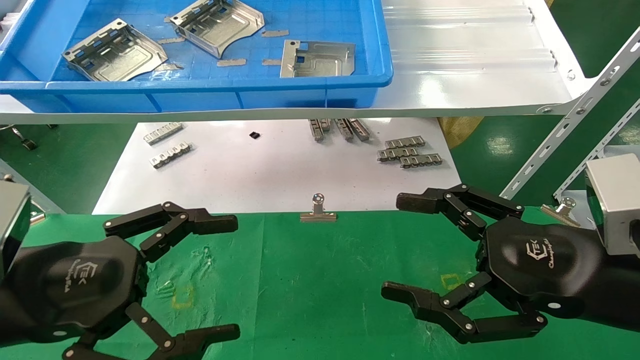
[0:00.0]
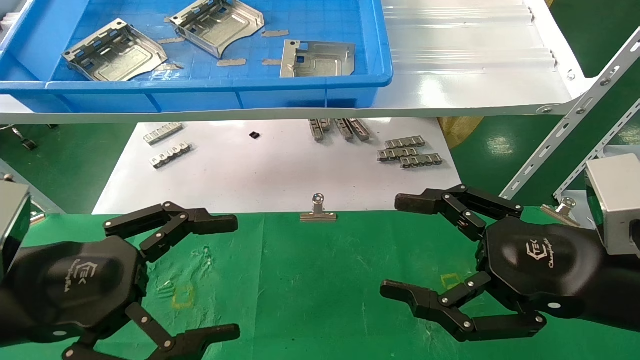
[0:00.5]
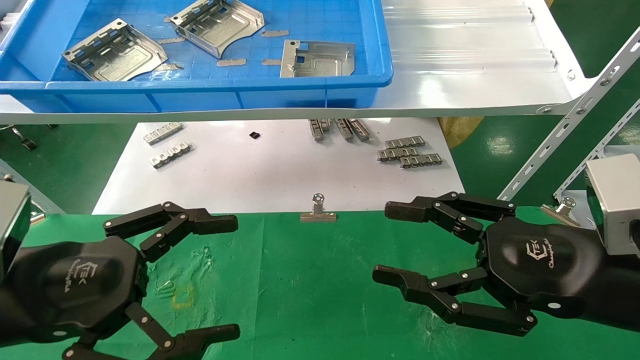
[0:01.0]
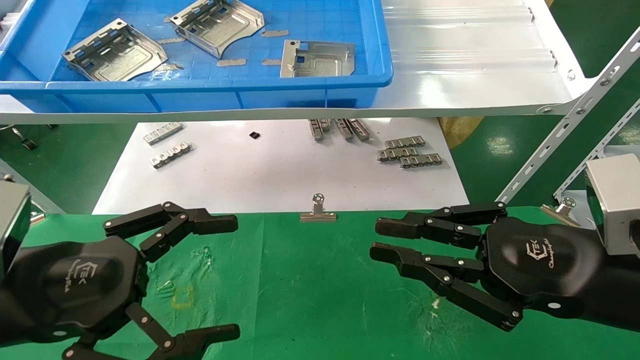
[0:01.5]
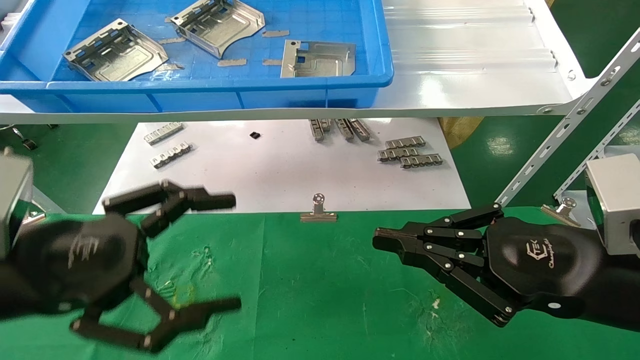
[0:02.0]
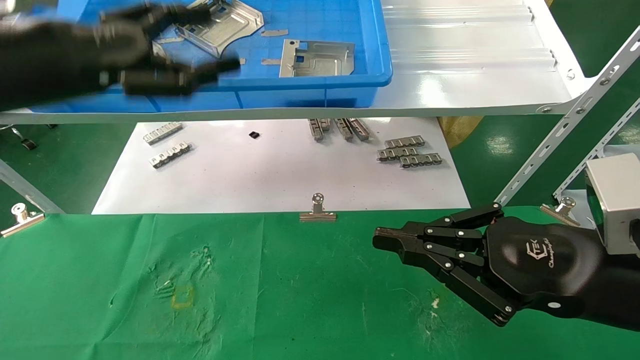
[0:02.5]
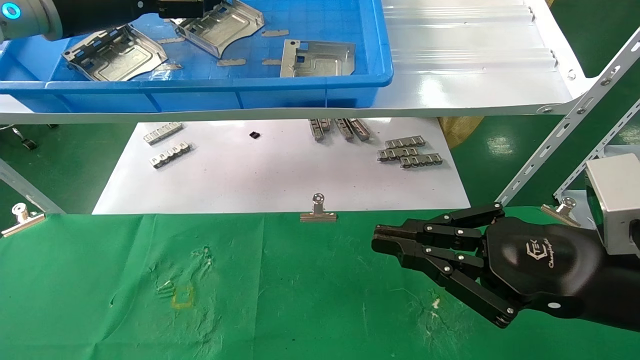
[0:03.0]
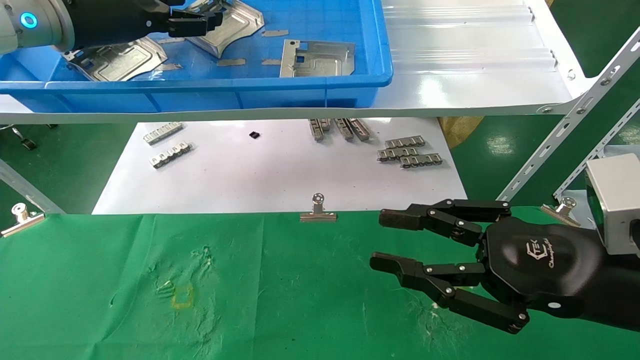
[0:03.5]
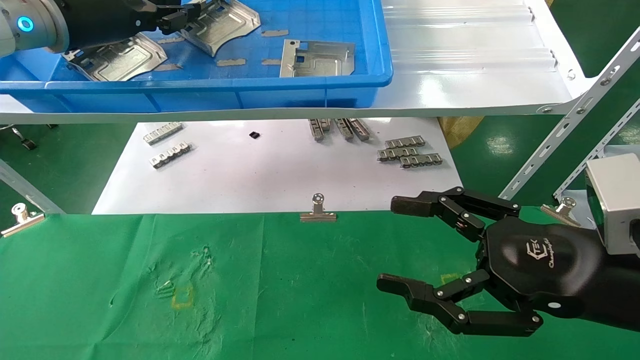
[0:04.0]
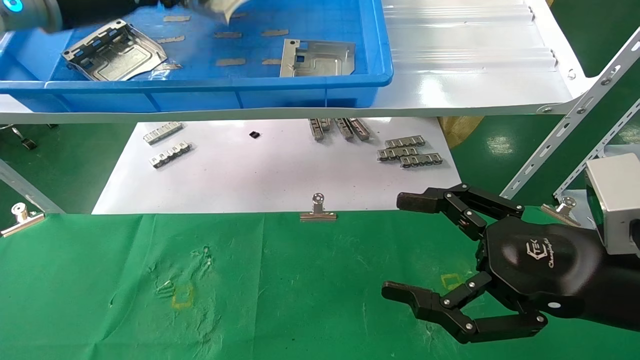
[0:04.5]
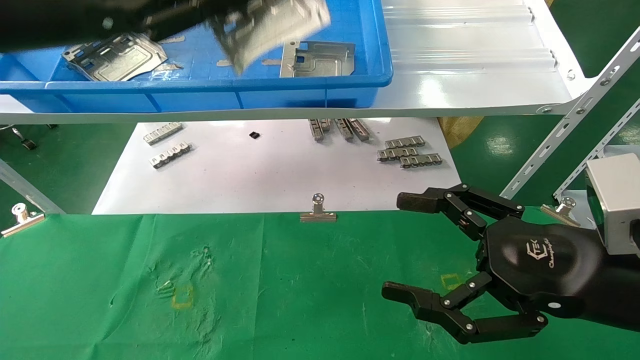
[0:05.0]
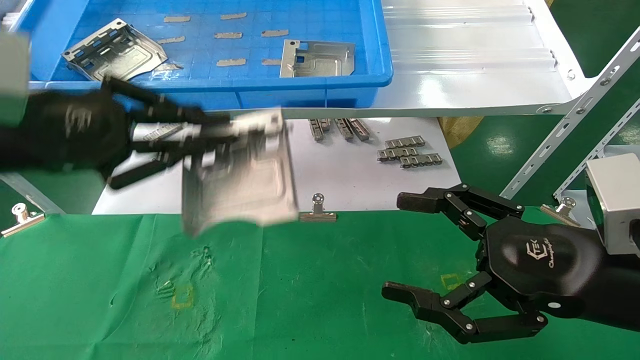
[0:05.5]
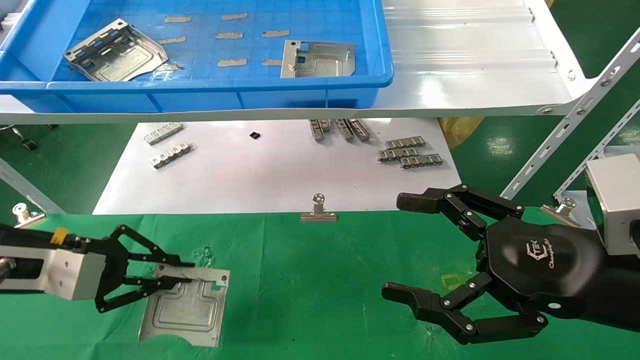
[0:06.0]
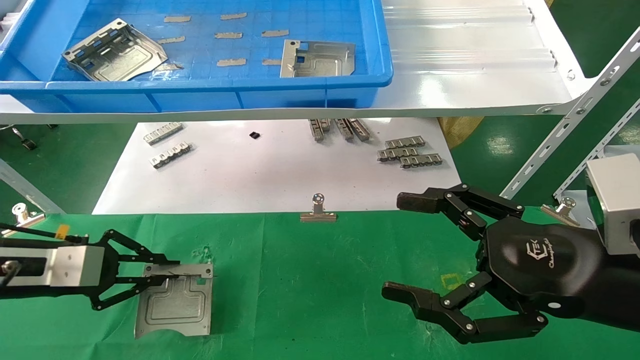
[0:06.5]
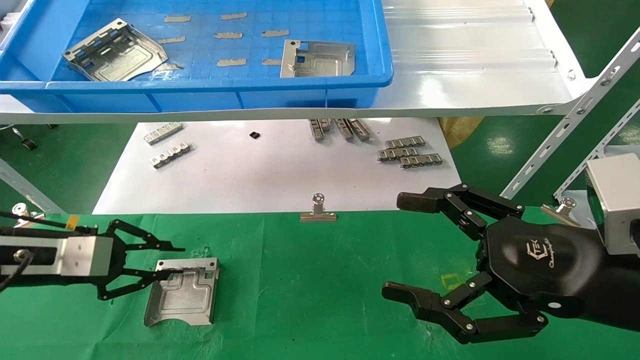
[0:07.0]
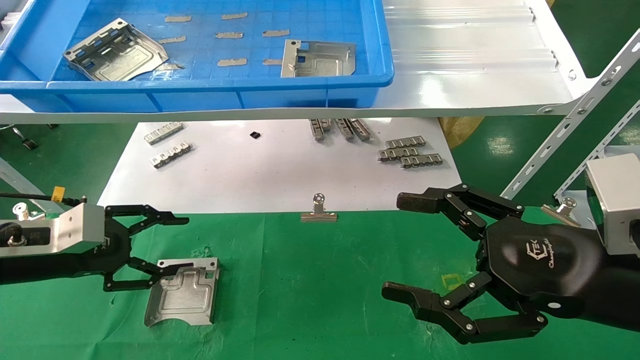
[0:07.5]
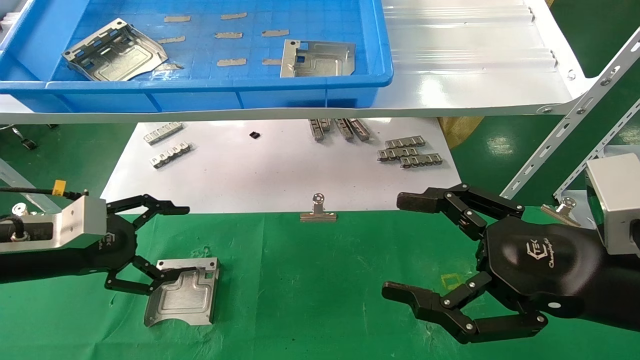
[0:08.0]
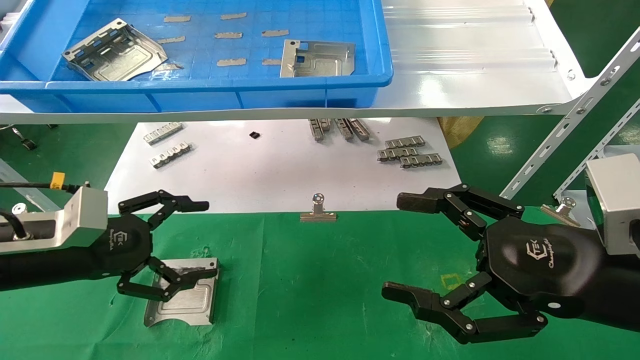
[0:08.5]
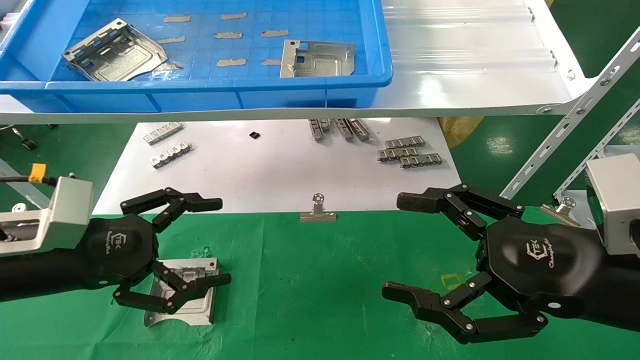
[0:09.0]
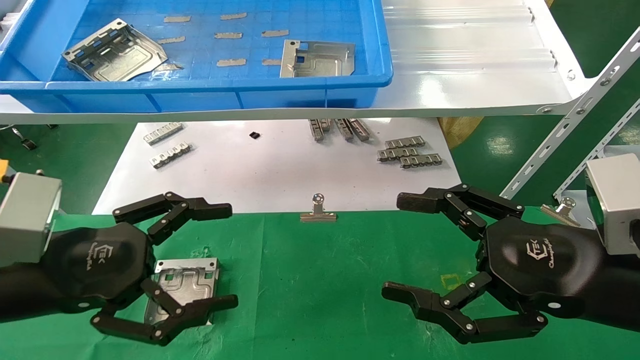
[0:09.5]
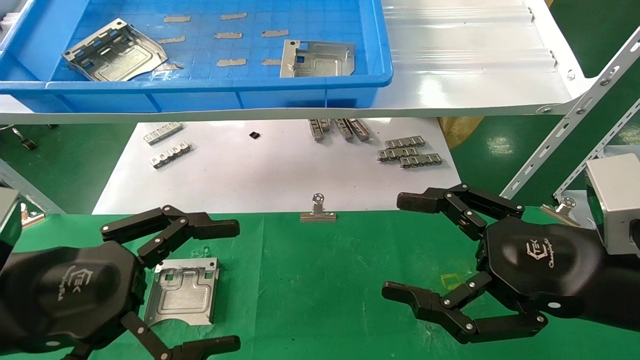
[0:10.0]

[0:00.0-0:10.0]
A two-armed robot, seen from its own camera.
Task of the whole recording: use the mechanical arm to pick up the parts and place them on the table.
Step, 0:02.5 to 0:04.0: Pick up the hard drive bracket from the feeding area.
Step, 0:04.5 to 0:07.0: Place the hard drive bracket into the box.
0:00.0 to 0:02.0: The right gripper closes its fingers.
0:02.0 to 0:04.0: The right gripper opens its fingers. Meanwhile the left gripper goes roughly 30 cm forward and upward, and closes its fingers.
0:04.0 to 0:06.0: The left gripper travels downward and backward by about 25 cm, and closes up.
0:06.0 to 0:08.0: The left gripper opens its fingers.
0:08.0 to 0:10.0: The left gripper moves backward and to the right, approximately 15 cm.

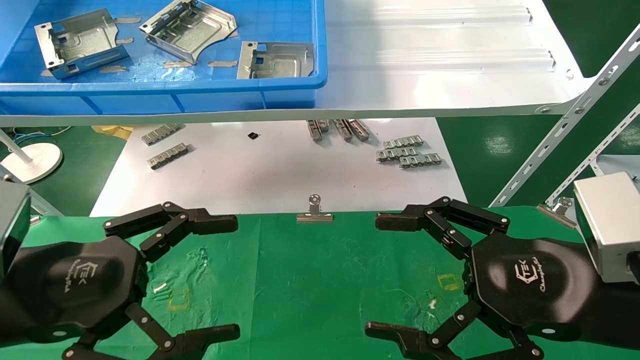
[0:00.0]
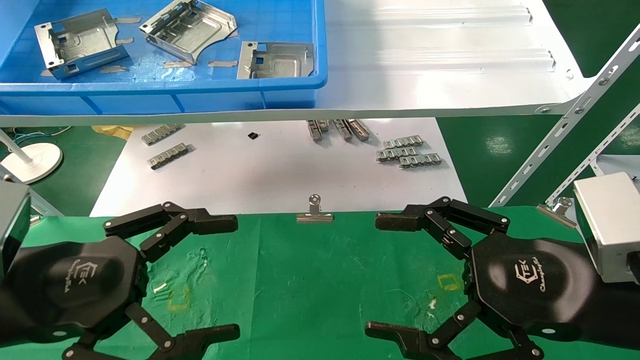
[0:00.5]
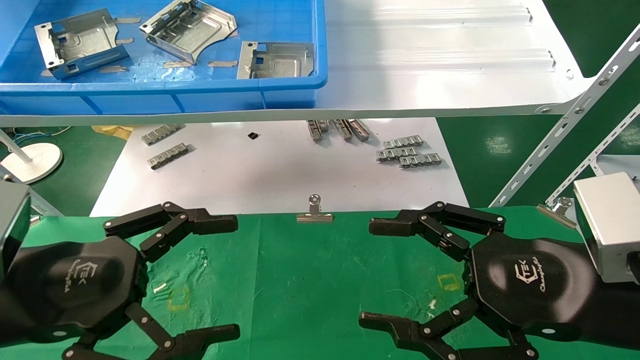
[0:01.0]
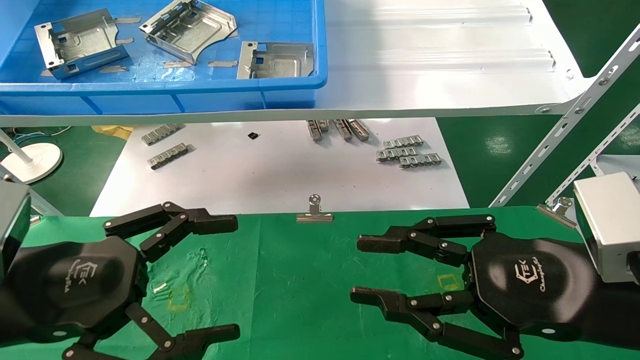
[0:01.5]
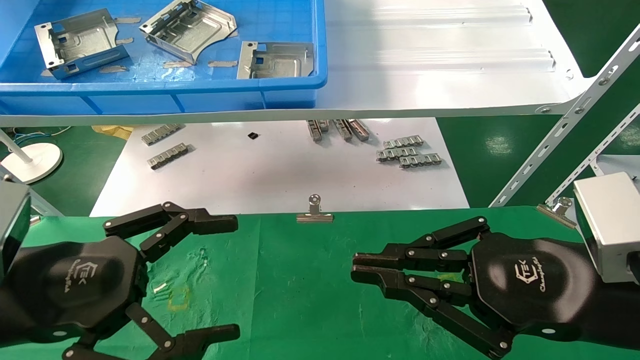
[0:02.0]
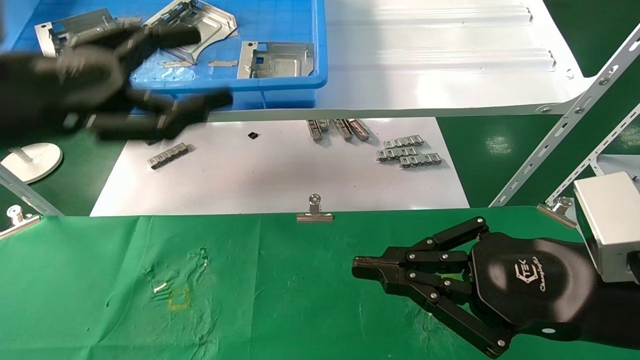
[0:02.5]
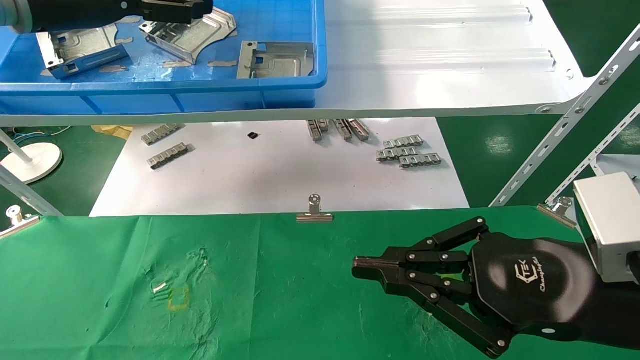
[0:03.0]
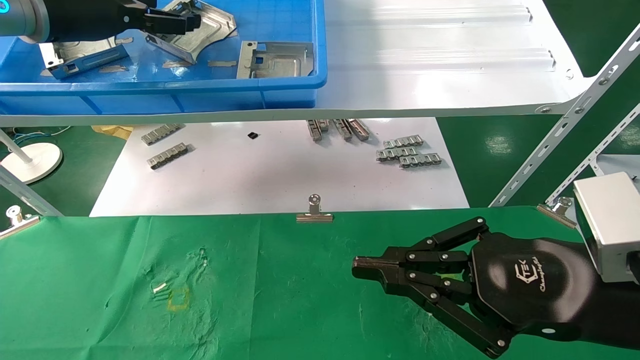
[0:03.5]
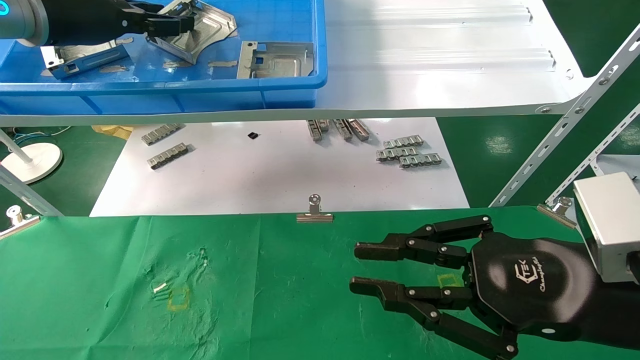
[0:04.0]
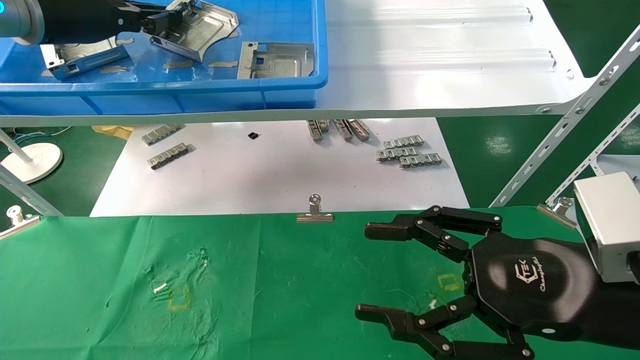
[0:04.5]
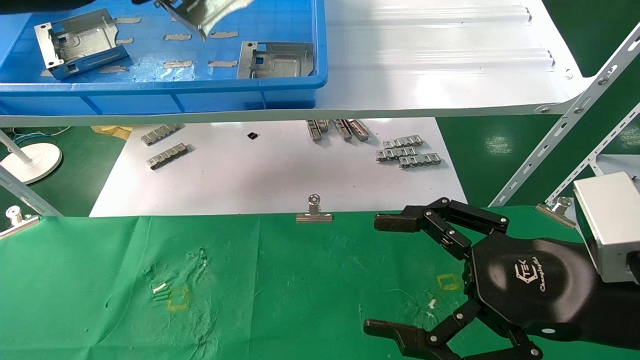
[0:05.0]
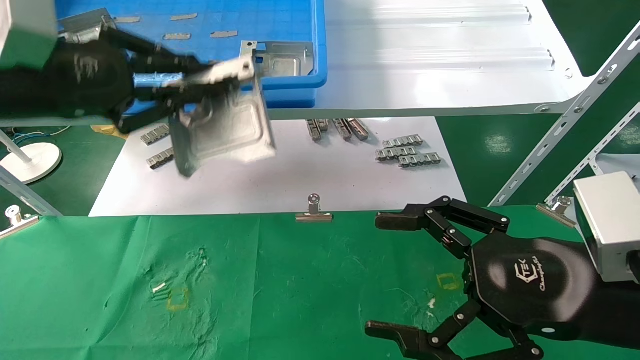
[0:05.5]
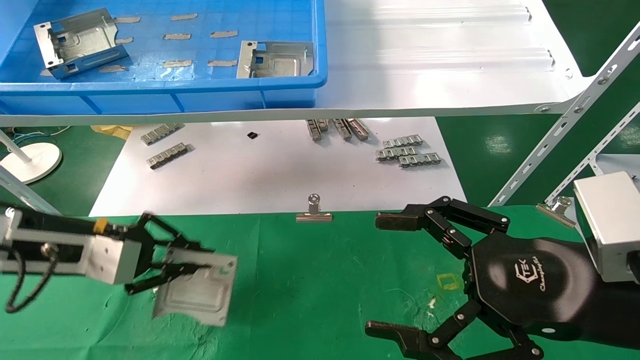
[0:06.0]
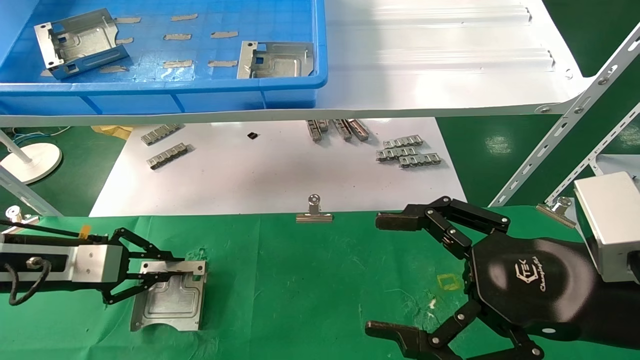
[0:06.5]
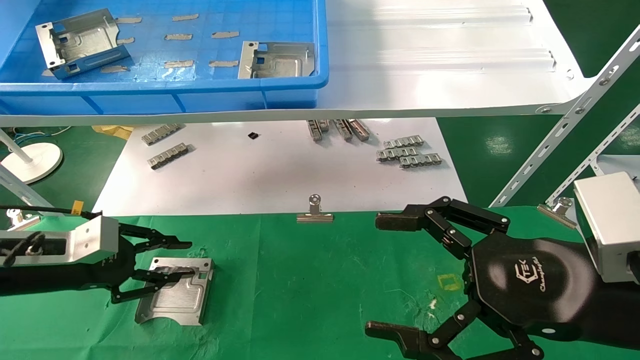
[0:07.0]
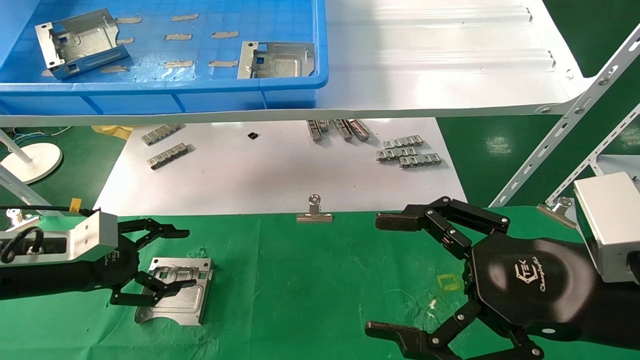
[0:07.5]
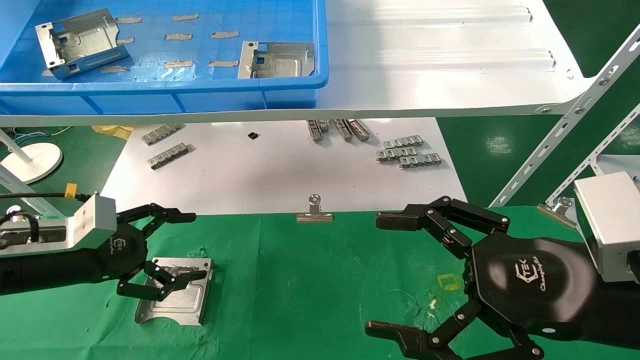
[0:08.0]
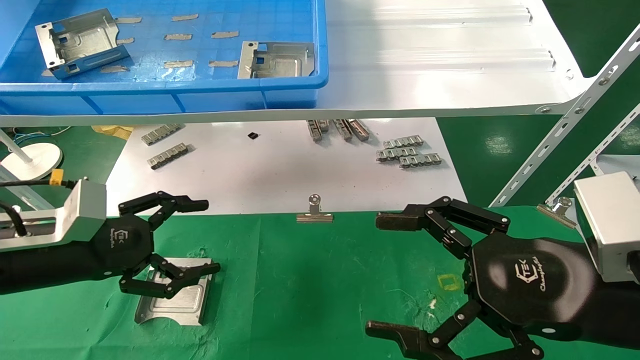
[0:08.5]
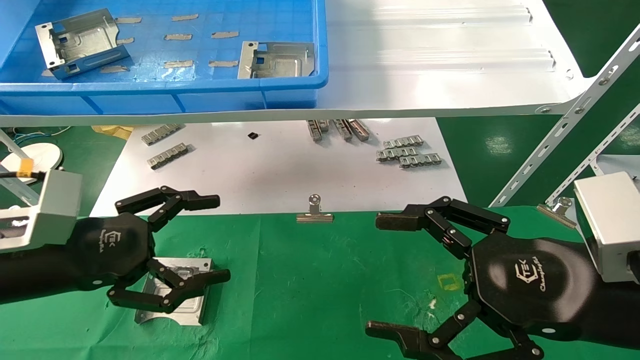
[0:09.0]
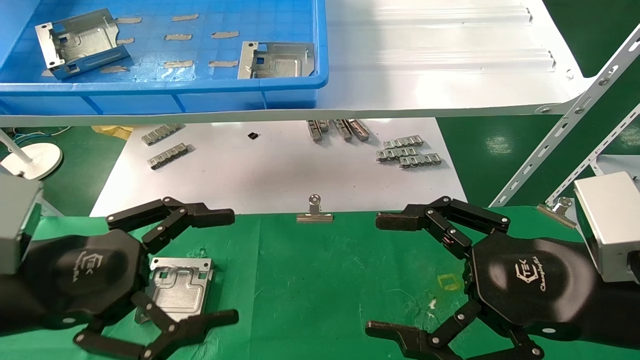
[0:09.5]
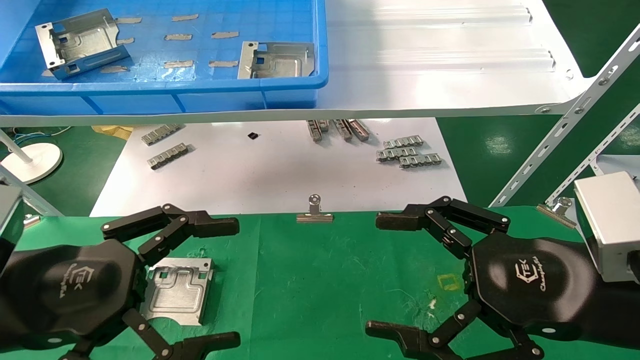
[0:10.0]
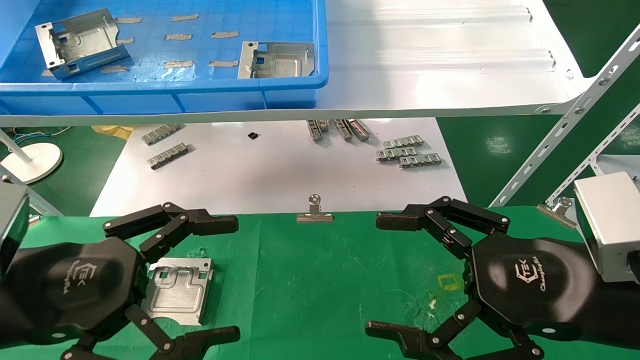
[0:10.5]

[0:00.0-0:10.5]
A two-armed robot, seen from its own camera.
Task of the whole recording: use the mechanical arm to pick up the parts and place them on the table.
Step, 0:02.5 to 0:04.0: Pick up the hard drive bracket from the feeding area.
Step, 0:04.5 to 0:06.5: Place the hard drive bracket into the box.
0:00.0 to 0:02.0: The right gripper closes its fingers.
0:02.0 to 0:04.0: The left gripper is displaced upward and forward by roughly 30 cm, and closes up.
0:04.0 to 0:06.5: The right gripper opens up. The left gripper goes roughly 30 cm downward, and closes its fingers.
0:06.5 to 0:08.5: The left gripper shifts approximately 5 cm to the right, and opens its fingers.
0:08.5 to 0:10.5: The left gripper is displaced backward and to the right by roughly 10 cm.
